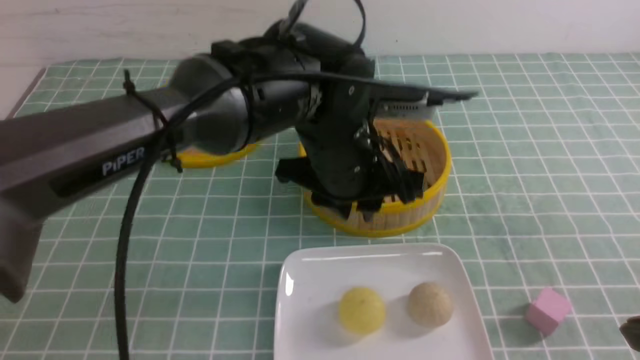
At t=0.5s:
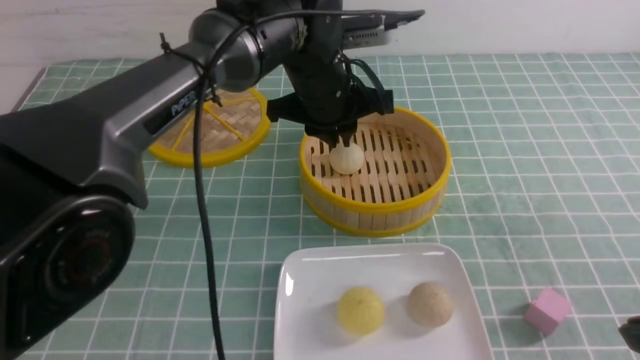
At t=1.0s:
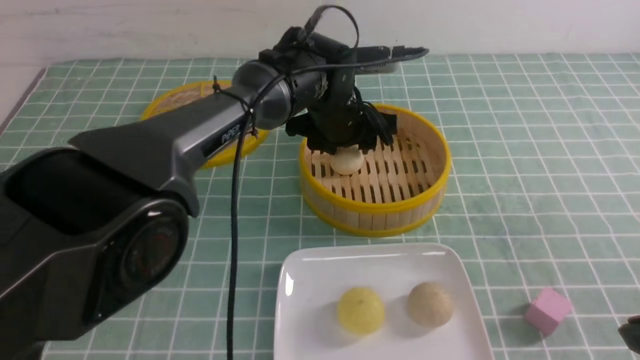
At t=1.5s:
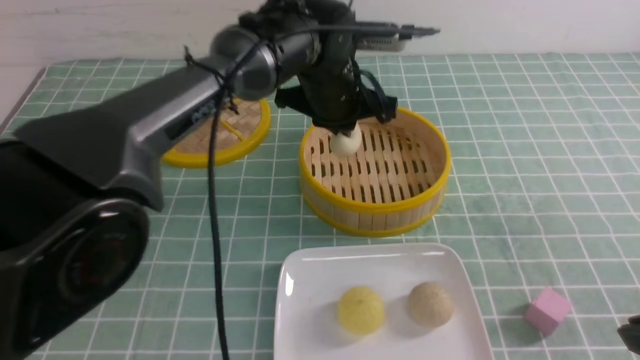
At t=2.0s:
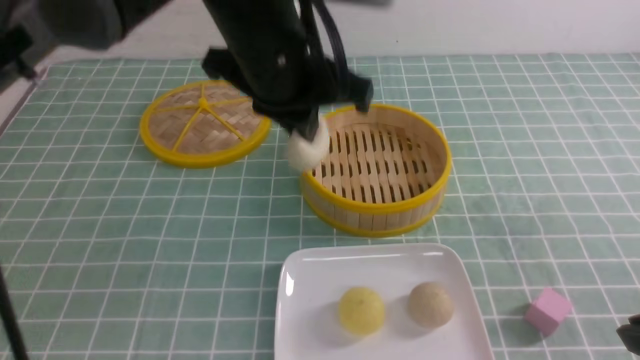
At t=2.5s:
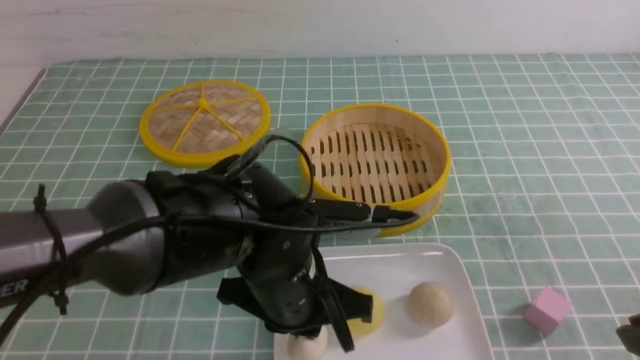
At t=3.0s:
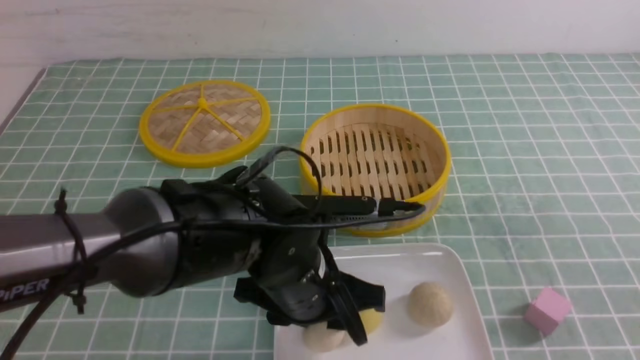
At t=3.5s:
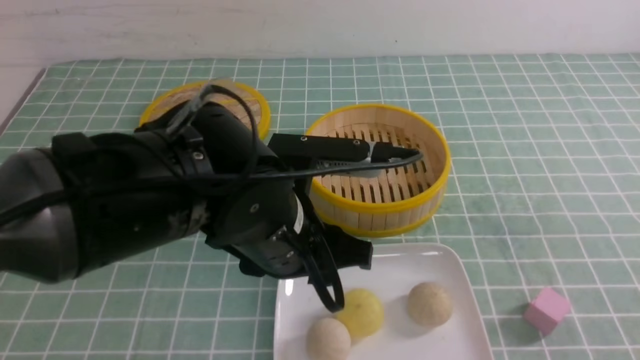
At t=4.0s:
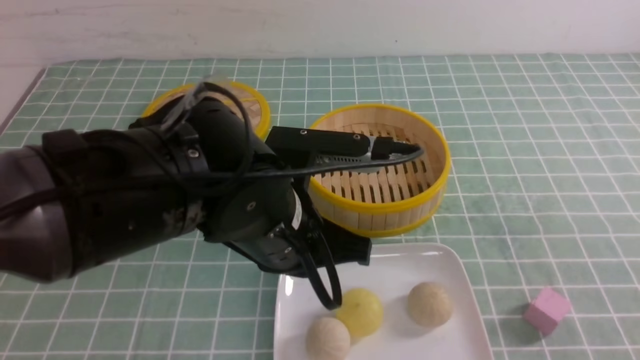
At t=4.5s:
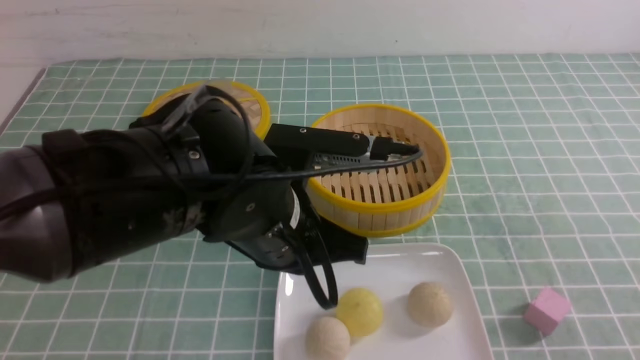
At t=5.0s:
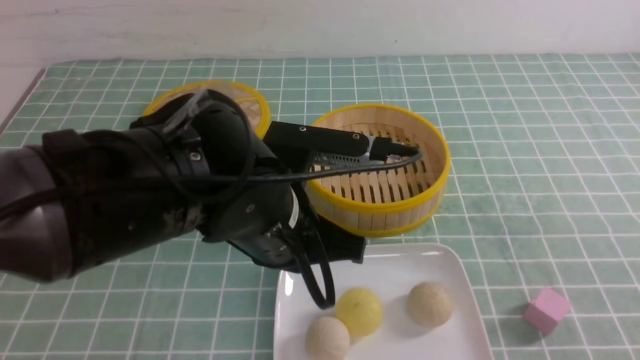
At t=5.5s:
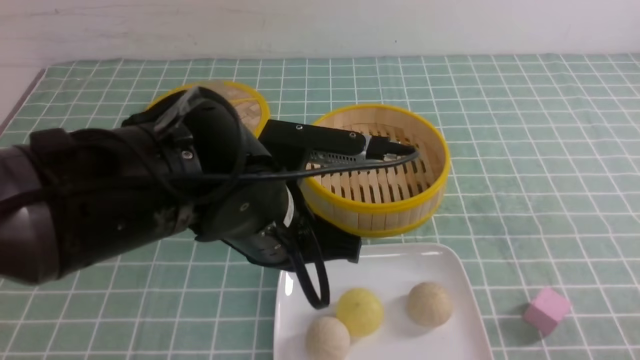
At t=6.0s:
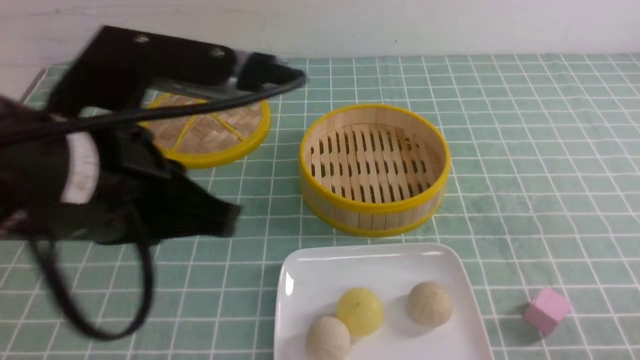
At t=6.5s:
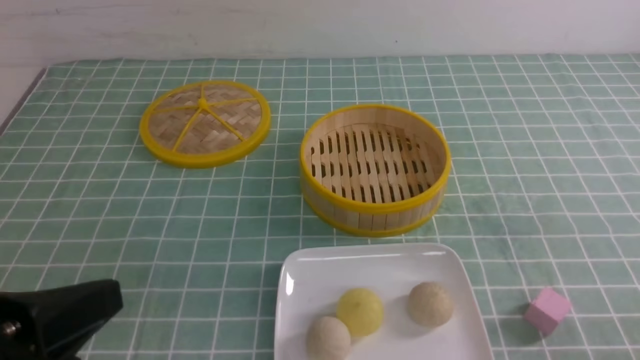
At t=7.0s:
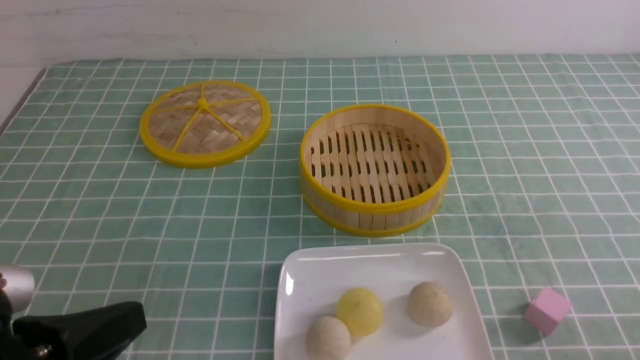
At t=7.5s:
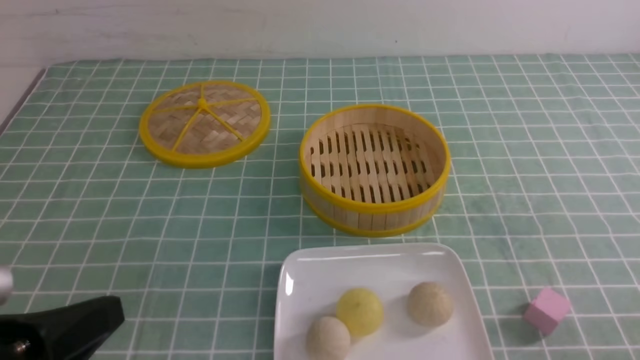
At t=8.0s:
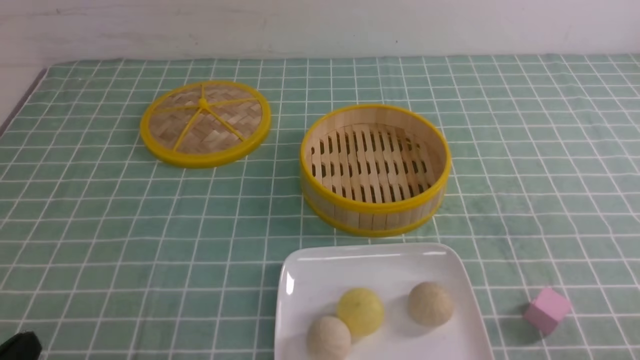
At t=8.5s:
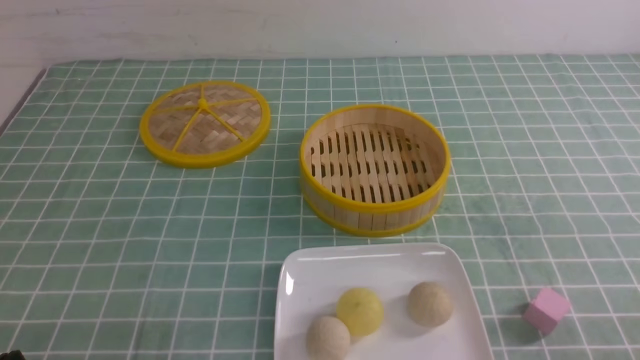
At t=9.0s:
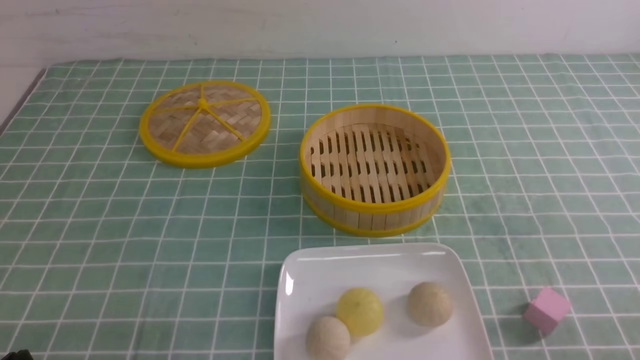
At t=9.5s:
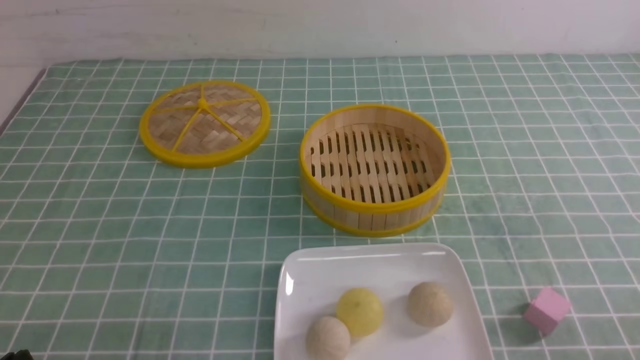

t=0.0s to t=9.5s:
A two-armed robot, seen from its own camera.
Step, t=0.0s to t=1.0s: use the left arm to grab the steamed stuffed bun that is closest to it.
Step, t=1.5s to t=3.0s: use the left arm to put the steamed stuffed bun into the plate.
t=0.0s to t=2.0s: The left gripper goes some 10 cm upward, travels forward and back again, some 10 cm each way, and closes.
t=2.0s to t=4.0s: The right gripper shifts about 10 cm backward, and closes its fingers. Meanwhile the left gripper moves downward and backward, some 10 cm, and opens and closes again.
t=4.0s to t=5.5s: The right gripper moves downward, roughly 10 cm.
t=5.5s to t=7.5s: The left gripper heads to the left and backward, covering approximately 25 cm.
t=7.5s to t=9.5s: The left gripper shifts roughly 10 cm downward.

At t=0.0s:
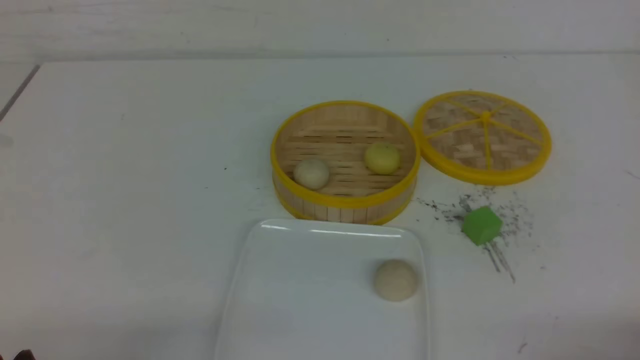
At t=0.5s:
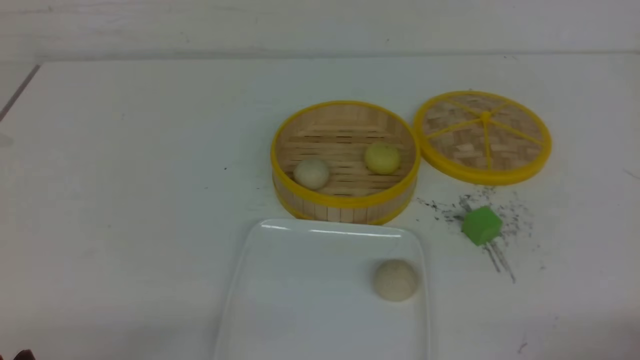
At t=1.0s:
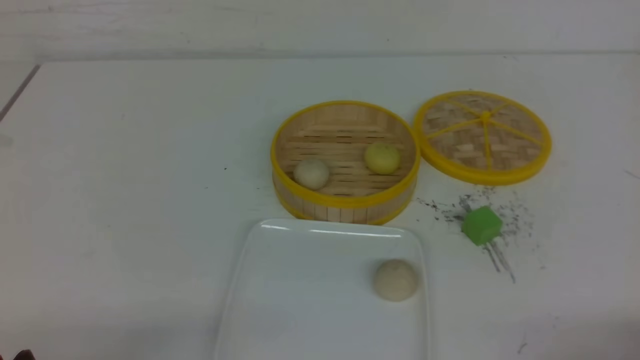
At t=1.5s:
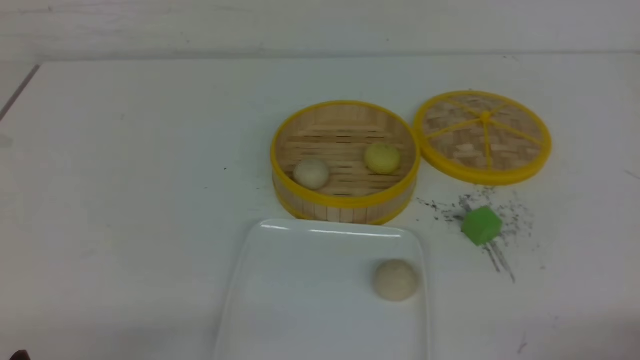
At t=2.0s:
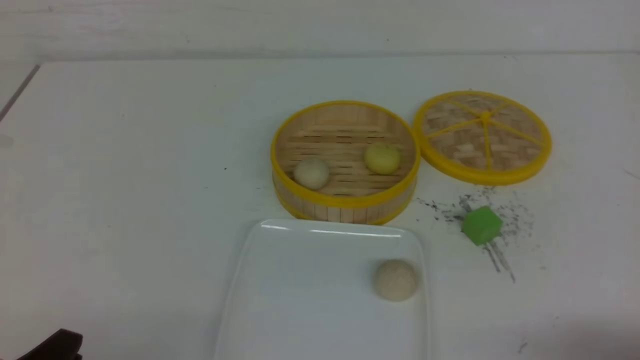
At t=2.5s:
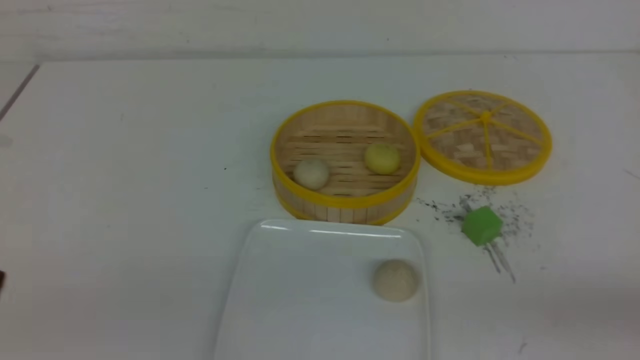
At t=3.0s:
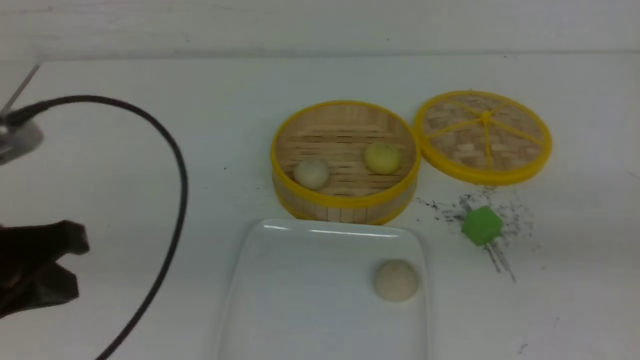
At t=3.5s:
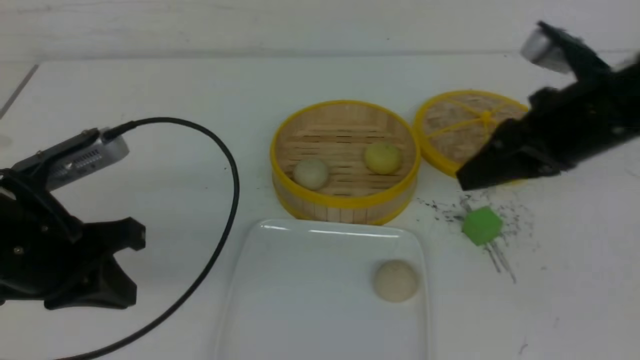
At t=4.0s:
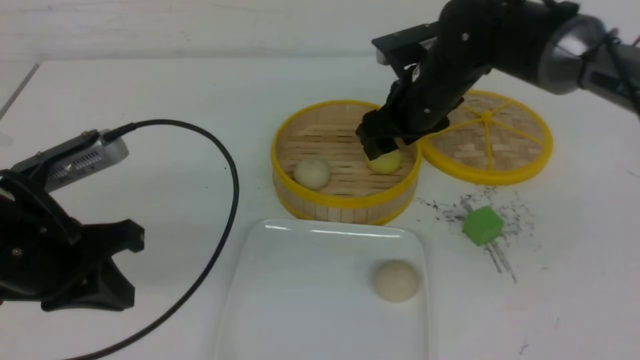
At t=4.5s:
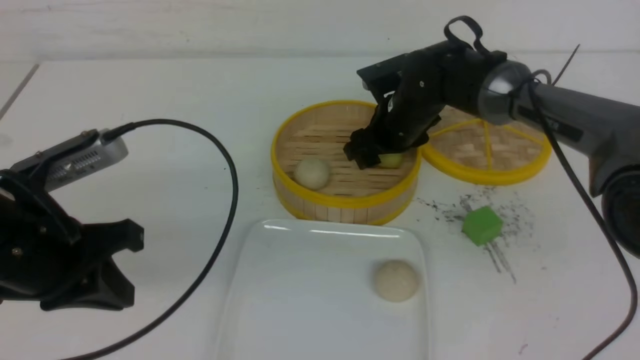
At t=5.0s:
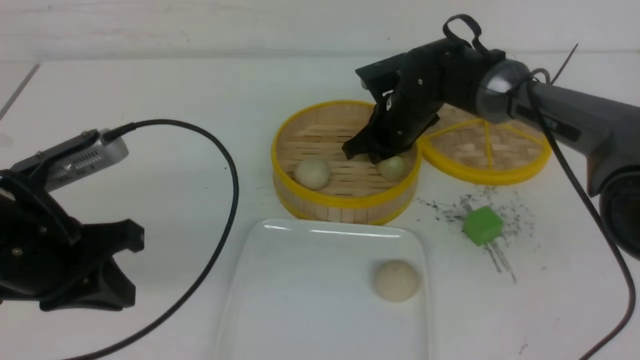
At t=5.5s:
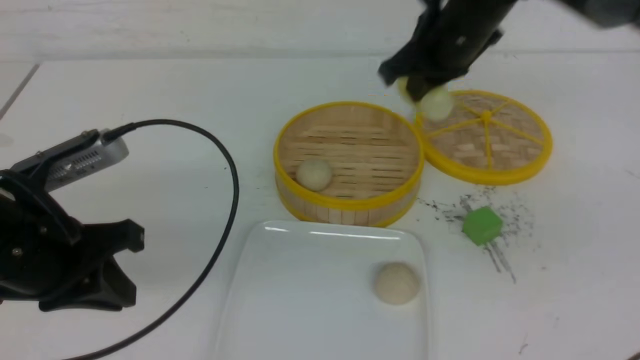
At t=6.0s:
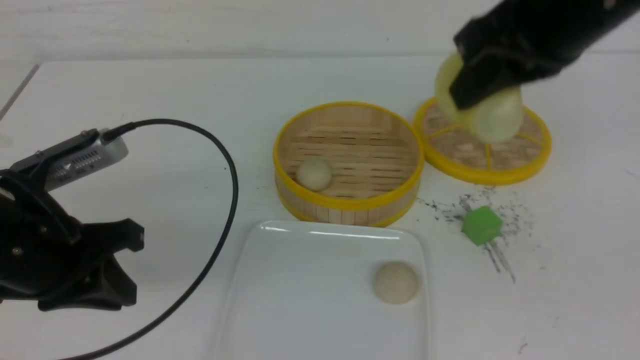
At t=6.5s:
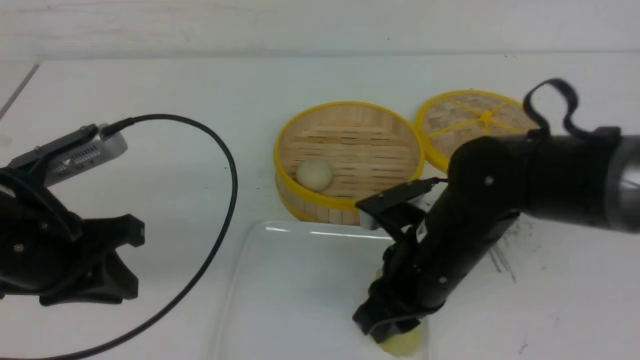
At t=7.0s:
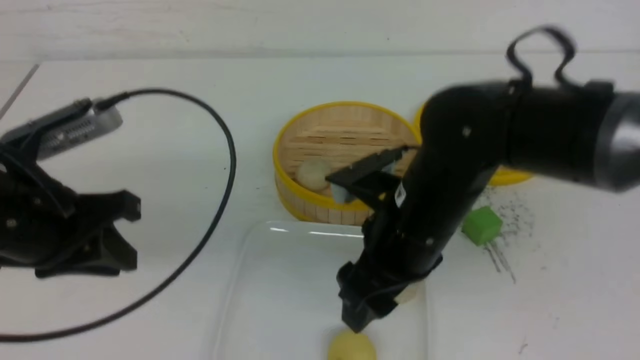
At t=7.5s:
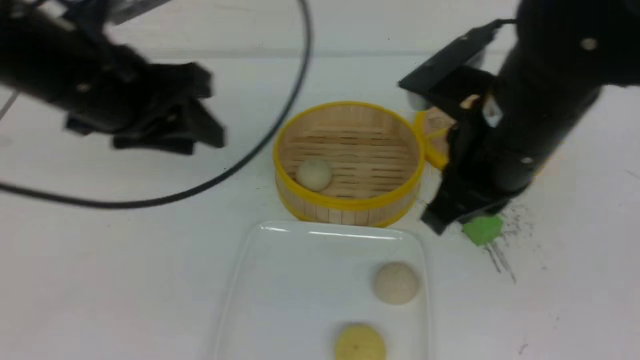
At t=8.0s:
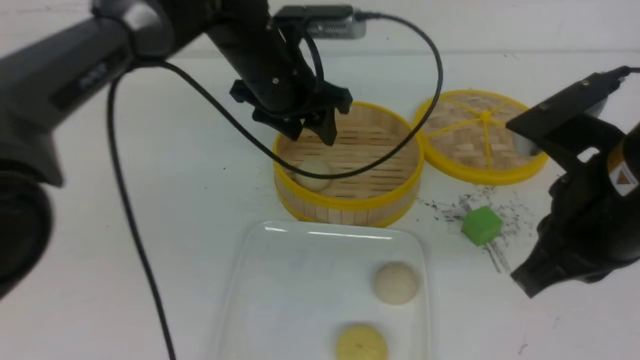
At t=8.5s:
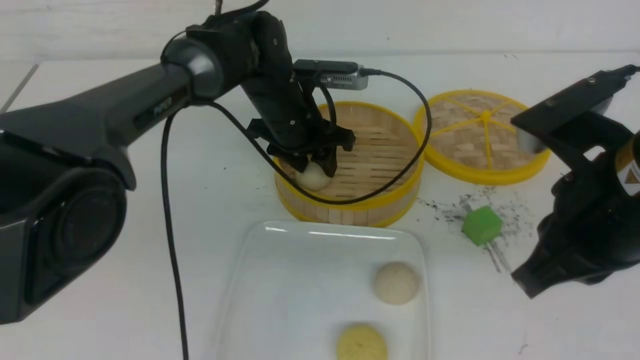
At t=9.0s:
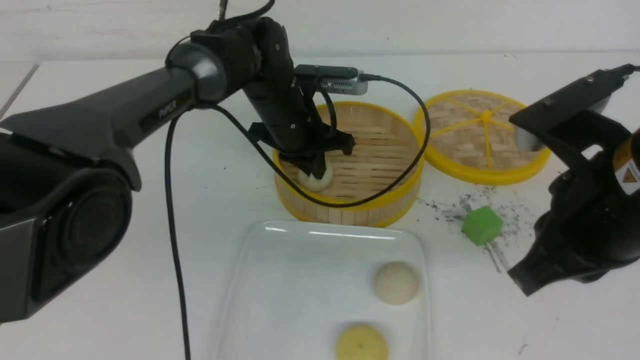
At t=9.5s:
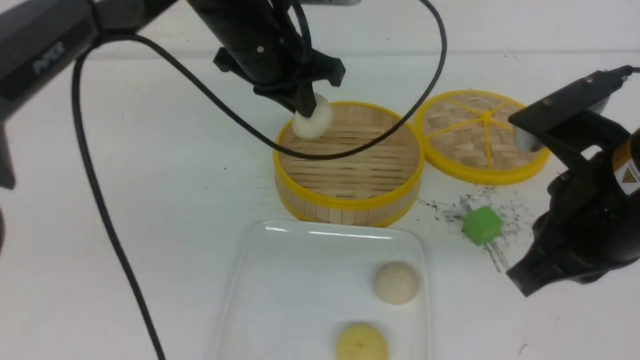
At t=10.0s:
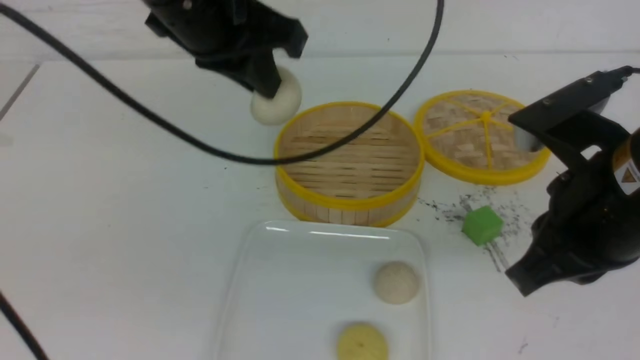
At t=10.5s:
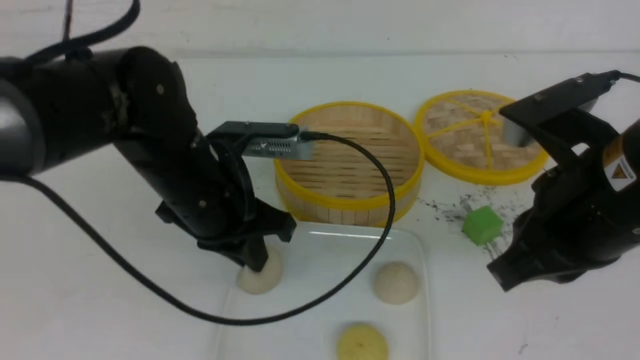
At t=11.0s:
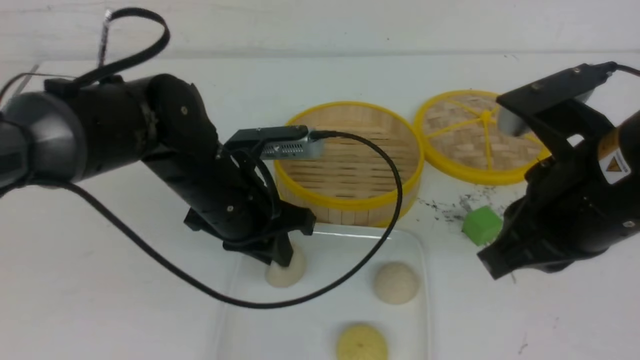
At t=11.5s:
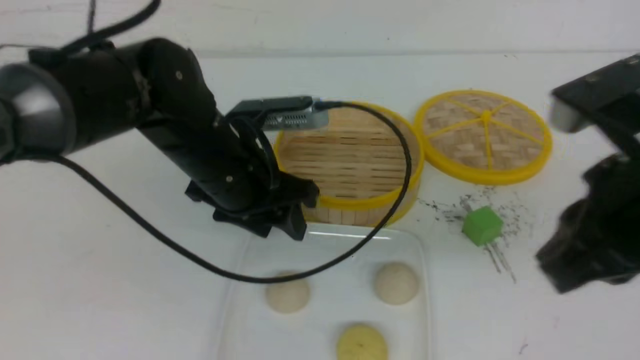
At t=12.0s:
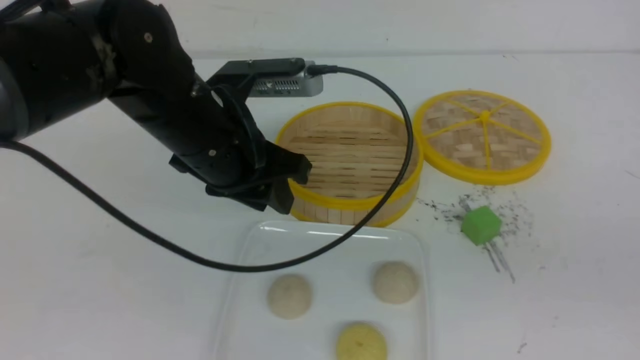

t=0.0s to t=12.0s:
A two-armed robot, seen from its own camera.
Step, t=0.0s to t=5.0s: use the right arm to grab the steamed stuffed bun that is closest to it.
Step, t=5.5s to t=6.5s: use the right arm to put the steamed stuffed bun into the plate.
Step, t=7.0s to t=8.5s: use the left arm to grab the steamed stuffed bun that is closest to it.
Step, t=9.0s to t=11.0s: use the left arm to put the steamed stuffed bun into the plate.
t=2.0s to t=4.0s: The left gripper travels forward and upward by some 20 cm, and closes up, while the right gripper goes approximately 40 cm forward and to the left, and opens its fingers.
t=4.0s to t=6.0s: The right gripper shifts roughly 20 cm backward and upward, and closes up.
t=6.0s to t=8.0s: The left gripper heads forward and to the right, covering roughly 25 cm, and opens. The right gripper goes about 10 cm backward, goes downward and returns, some 20 cm each way, and opens, then closes once more.
t=8.0s to t=10.0s: The left gripper goes some 15 cm upward and backward, and closes.
t=10.0s to t=12.0s: The right gripper shifts about 20 cm backward, to the right and upward, while the left gripper moves downward, approximately 10 cm, and opens up.
